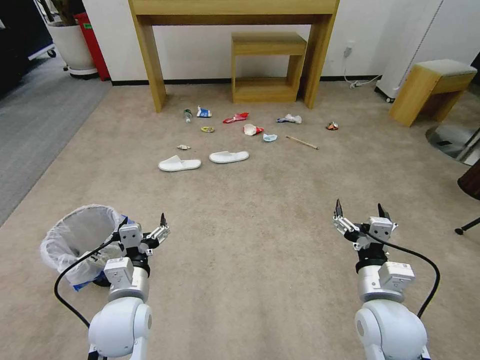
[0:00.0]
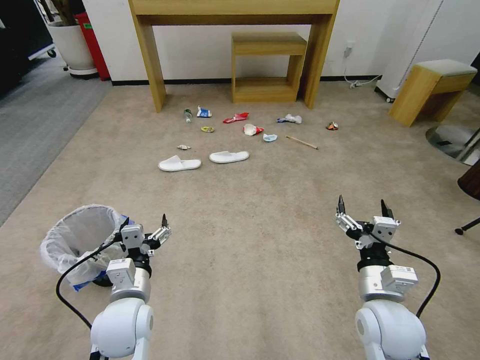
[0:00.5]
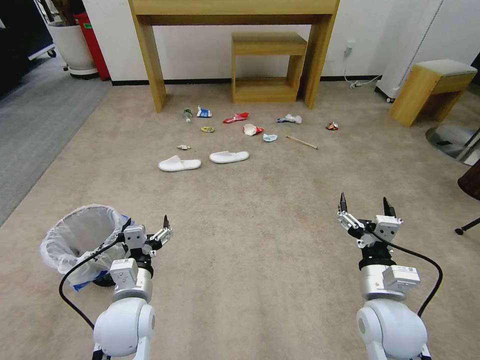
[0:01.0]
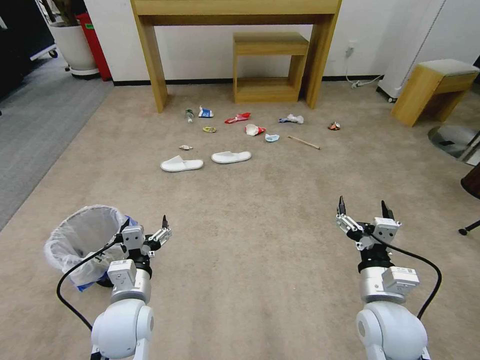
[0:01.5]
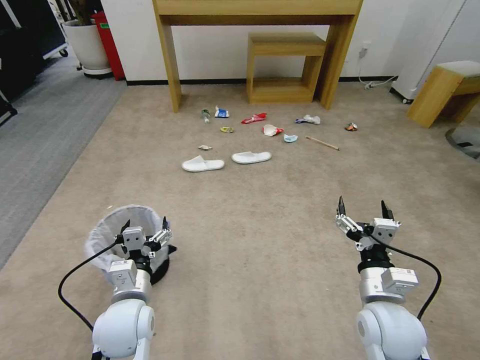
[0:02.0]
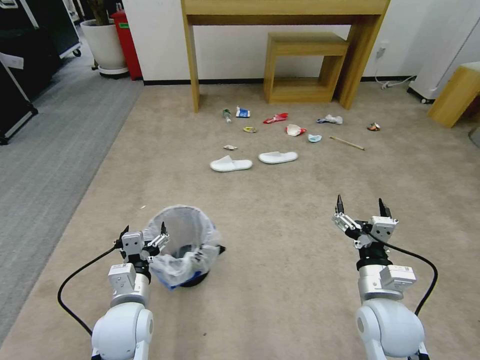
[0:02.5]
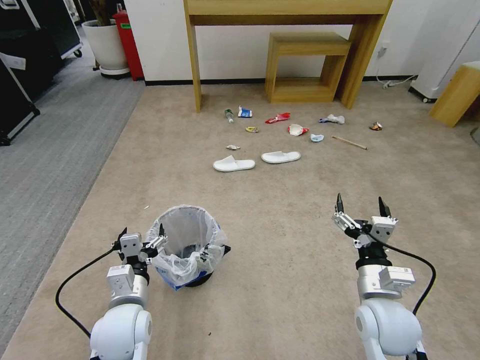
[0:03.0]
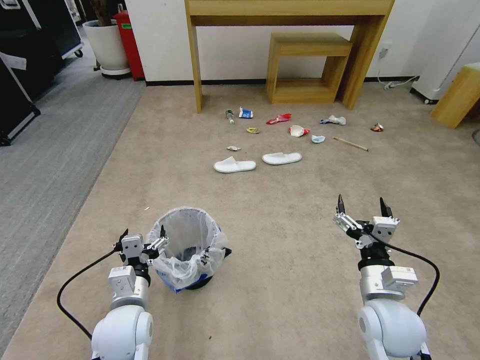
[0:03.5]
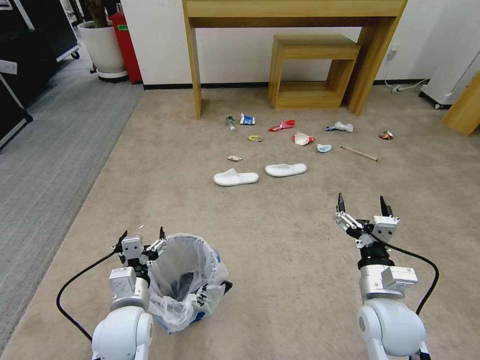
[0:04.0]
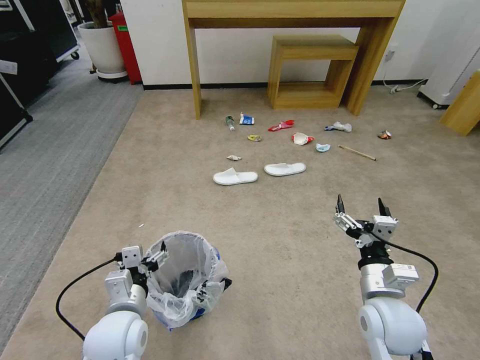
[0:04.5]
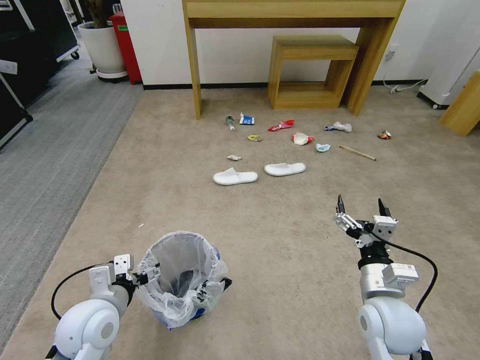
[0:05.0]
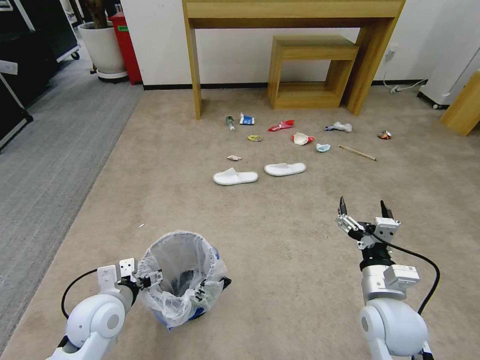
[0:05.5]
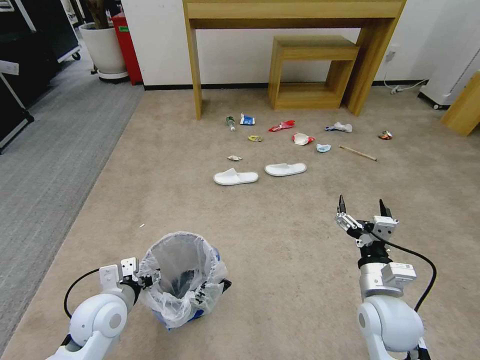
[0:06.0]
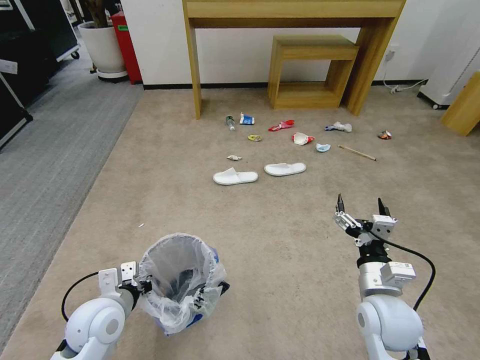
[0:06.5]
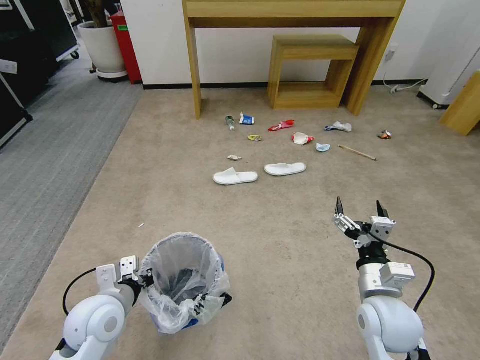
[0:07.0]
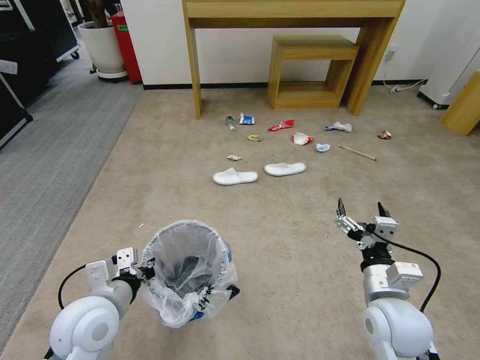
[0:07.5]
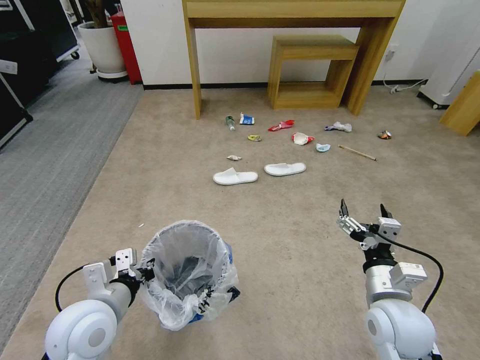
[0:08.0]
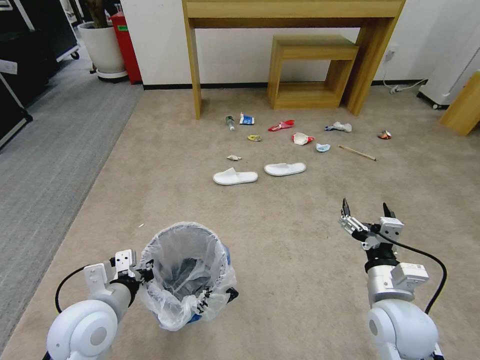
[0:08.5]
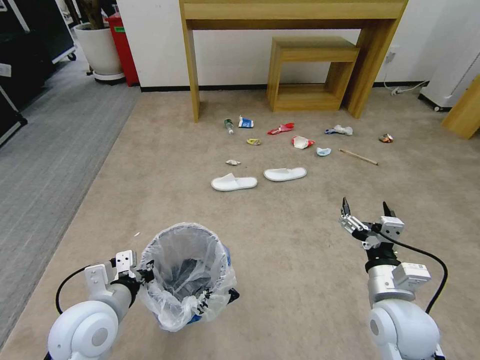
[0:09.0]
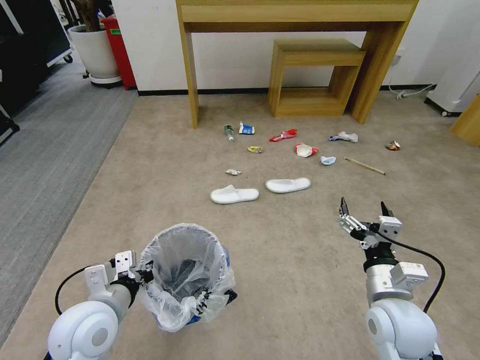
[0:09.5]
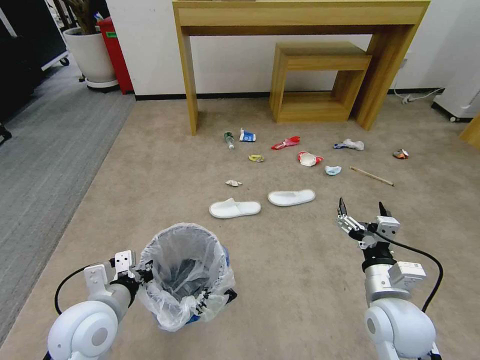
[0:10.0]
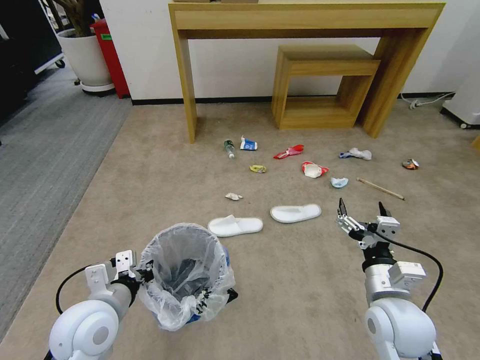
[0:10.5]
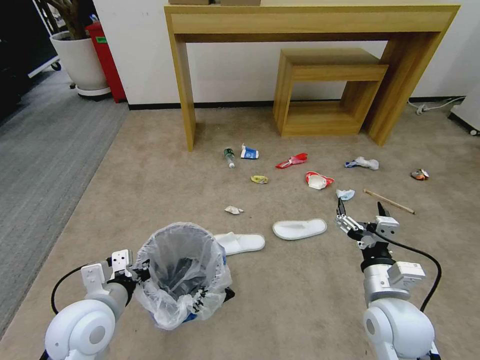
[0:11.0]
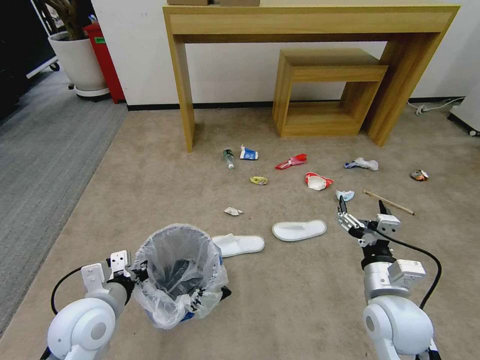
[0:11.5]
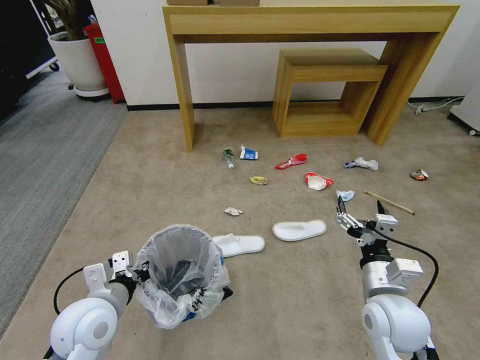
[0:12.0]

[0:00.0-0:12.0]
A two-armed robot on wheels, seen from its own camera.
Task of the whole recording: Pick up the trash bin and place the garbage on the floor into it.
0:04.0 to 0:06.0: The left gripper heads to the left, covering some 5 cm.
0:06.0 to 0:08.0: The left gripper travels upward by approximately 5 cm, and closes up.

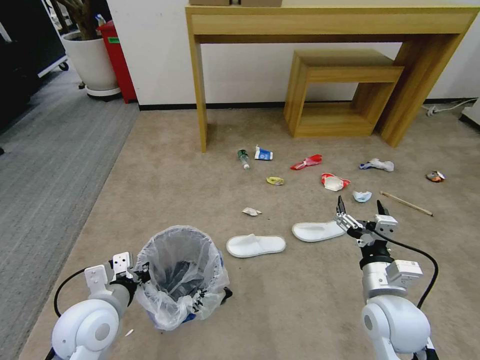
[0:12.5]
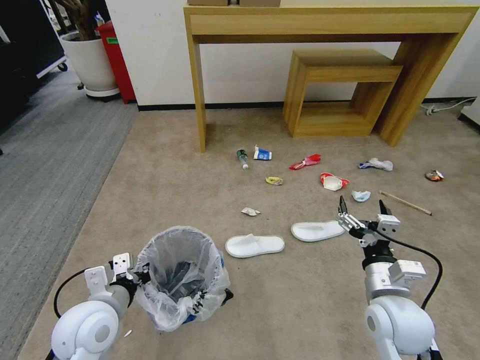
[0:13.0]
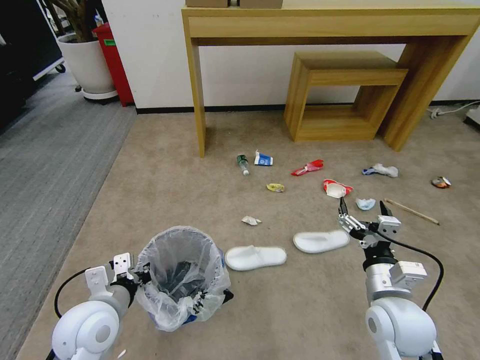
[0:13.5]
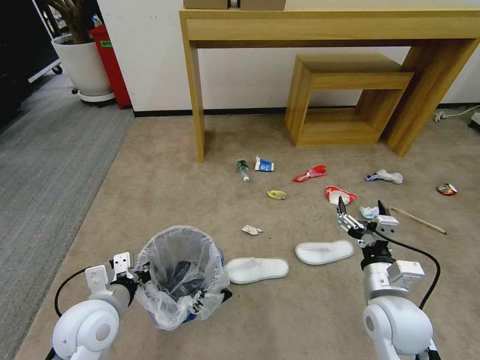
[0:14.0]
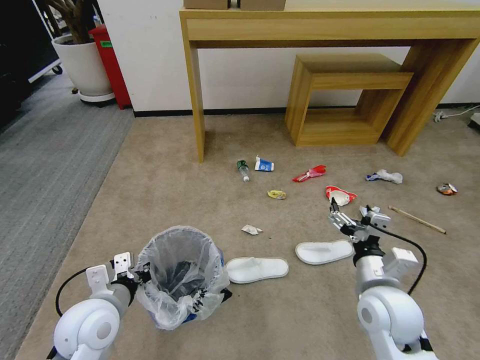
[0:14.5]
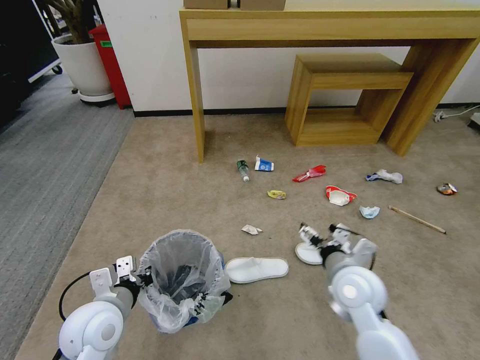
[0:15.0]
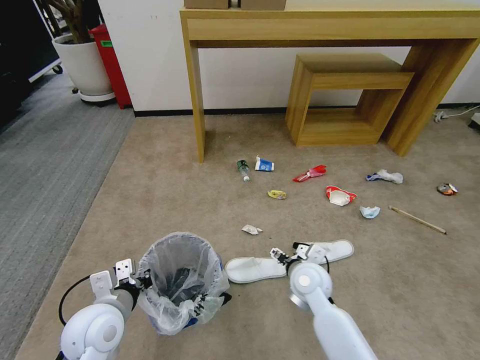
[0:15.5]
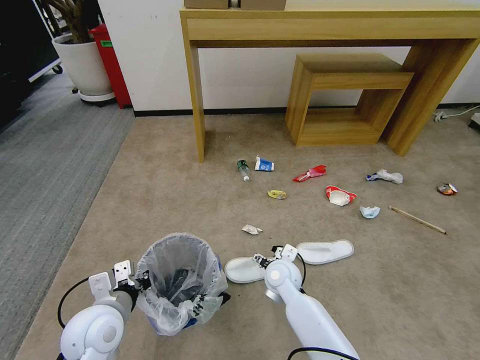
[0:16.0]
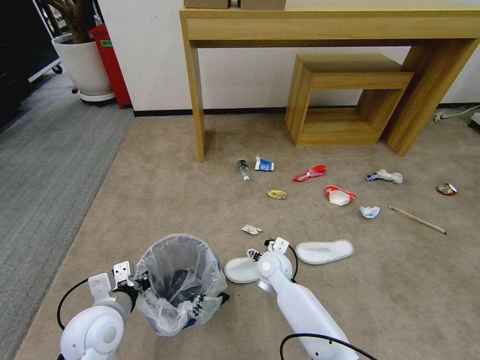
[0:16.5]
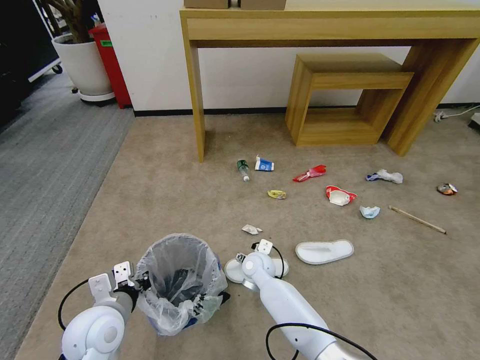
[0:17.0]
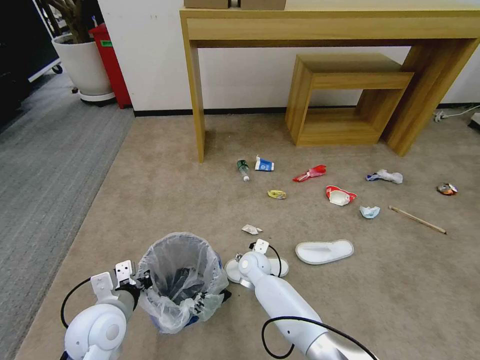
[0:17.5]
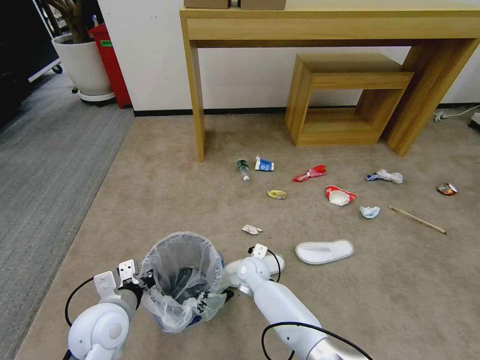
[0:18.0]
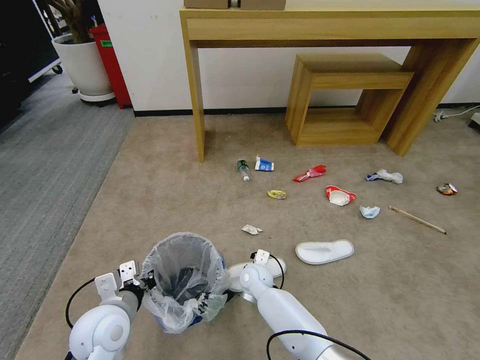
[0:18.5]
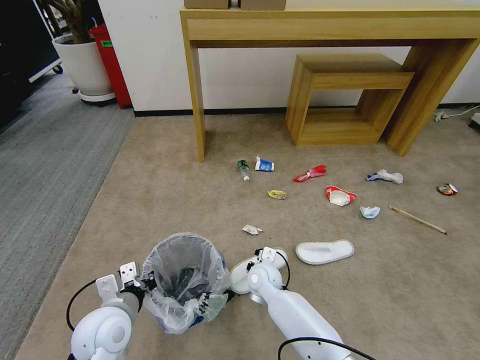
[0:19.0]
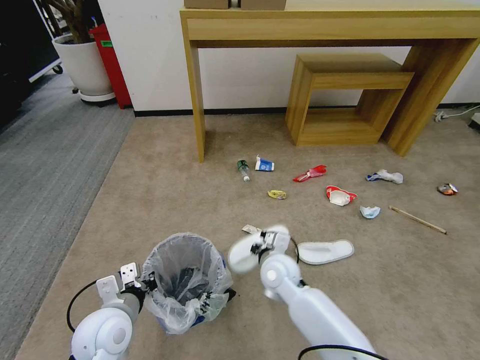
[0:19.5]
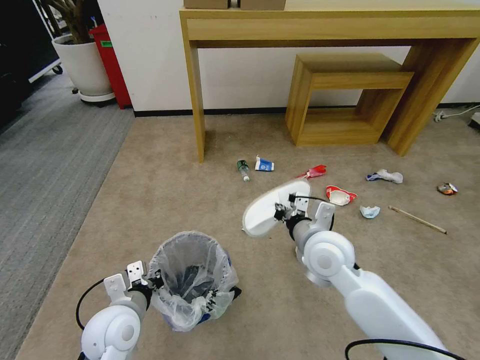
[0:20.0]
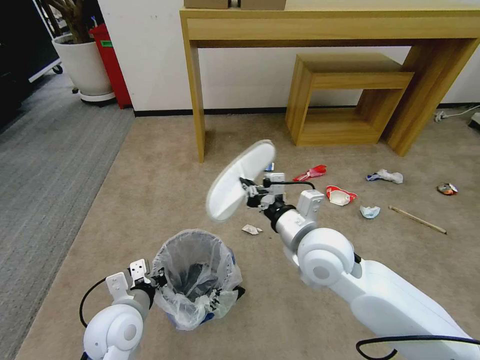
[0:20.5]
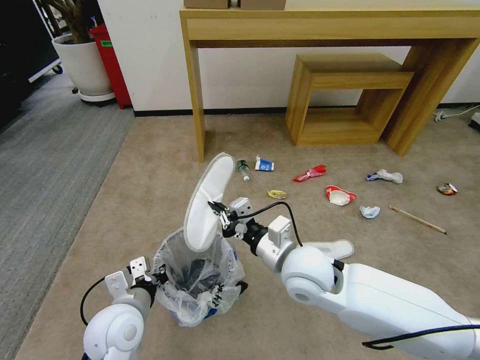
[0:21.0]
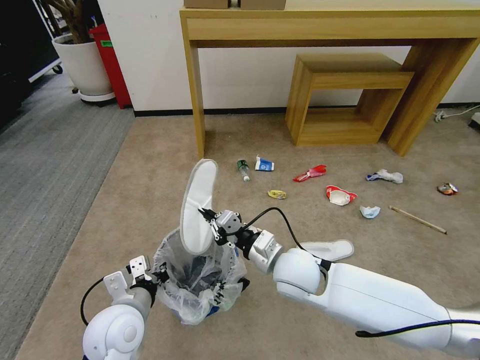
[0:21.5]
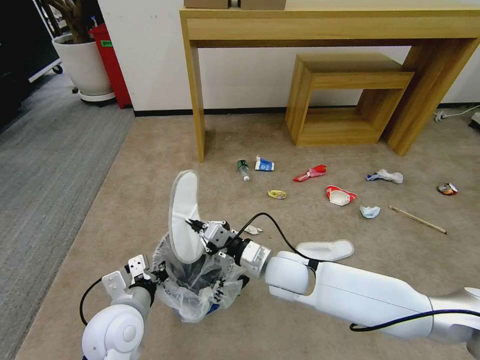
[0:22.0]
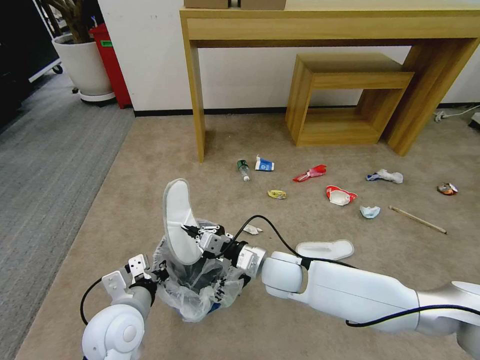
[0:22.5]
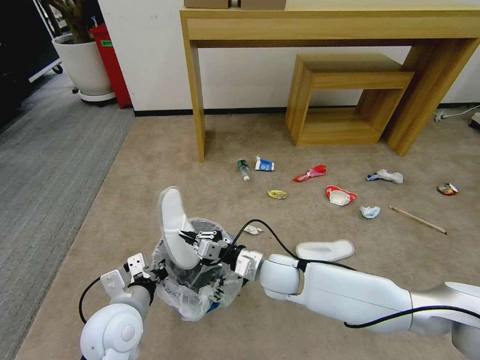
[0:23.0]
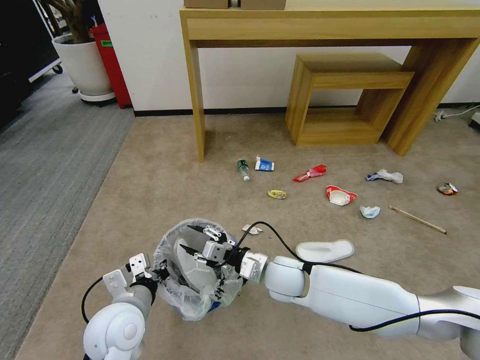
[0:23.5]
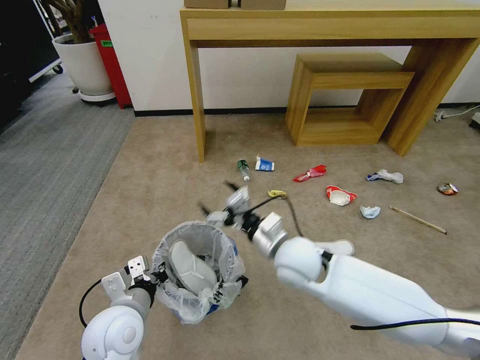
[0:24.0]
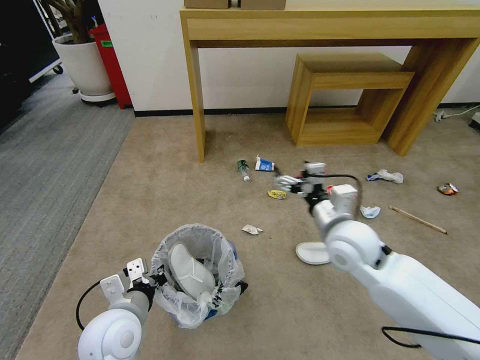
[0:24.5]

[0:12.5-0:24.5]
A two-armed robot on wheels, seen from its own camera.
Task of the whole recording: Pick up the trash bin and place the garbage on the floor into it.
0:14.5 to 0:16.5: The right gripper shifts roughly 25 cm to the left, forward and downward.
0:16.5 to 0:18.5: The right gripper is displaced downward by approximately 5 cm, and closes.
0:18.5 to 0:20.5: The right gripper is displaced upward by about 30 cm.
0:20.5 to 0:22.5: The right gripper shifts about 15 cm downward.
0:22.5 to 0:24.5: The right gripper heads to the right and upward, covering roughly 15 cm, and opens up.

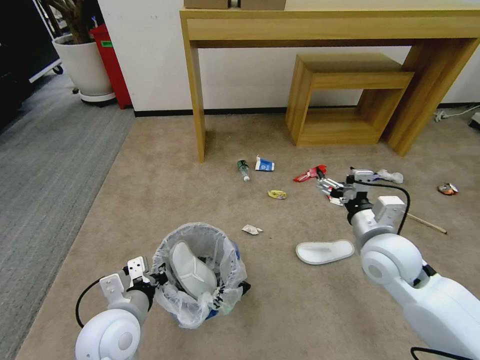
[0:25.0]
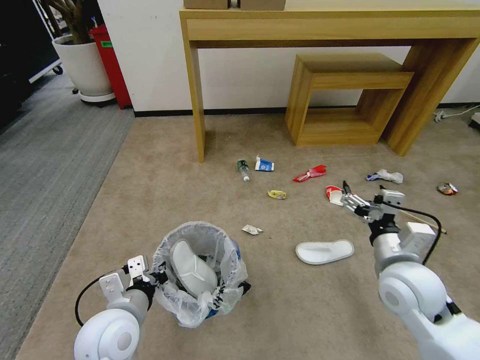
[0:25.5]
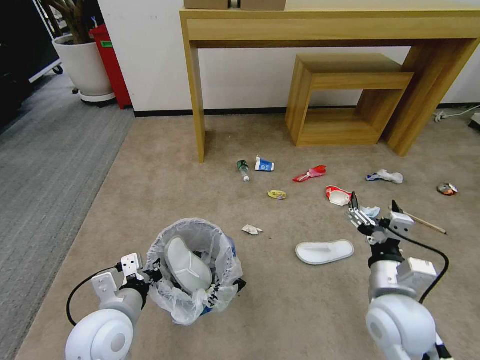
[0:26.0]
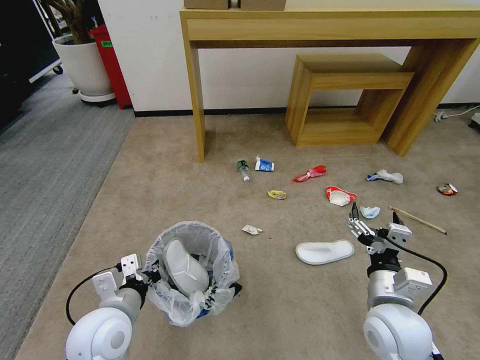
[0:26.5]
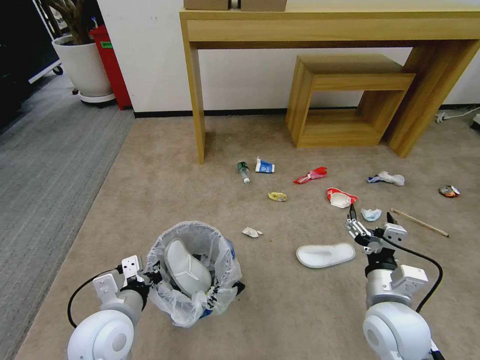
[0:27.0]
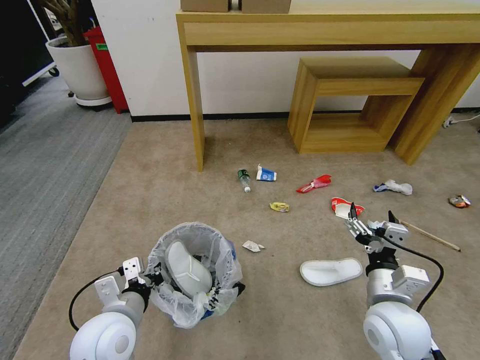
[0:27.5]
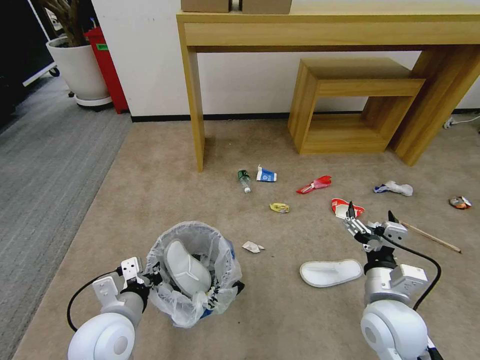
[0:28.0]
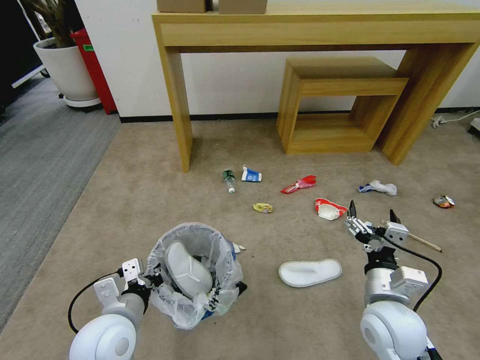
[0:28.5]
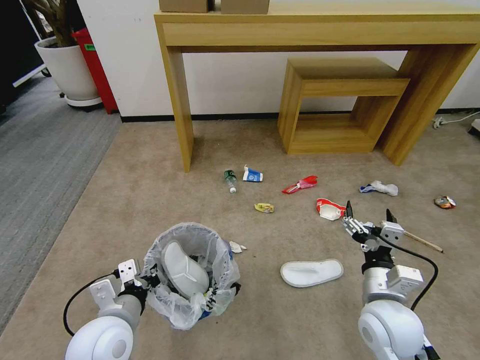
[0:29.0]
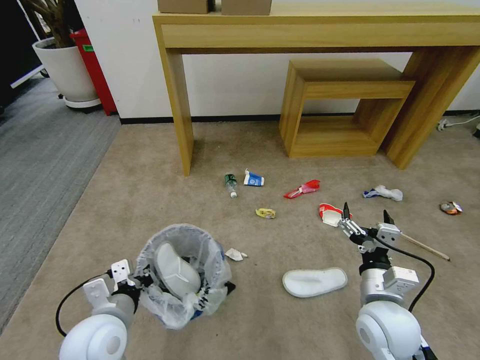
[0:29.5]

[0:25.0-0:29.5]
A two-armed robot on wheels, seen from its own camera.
Task of the whole recording: Pick up the trash bin and place the garbage on the floor into it.
0:25.0 to 0:27.0: The right gripper moves backward and downward, about 10 cm.
